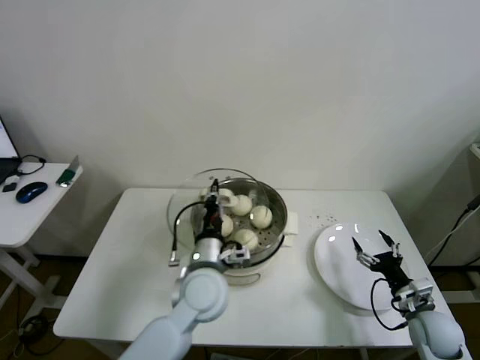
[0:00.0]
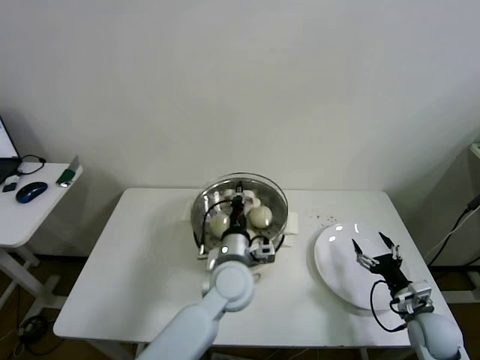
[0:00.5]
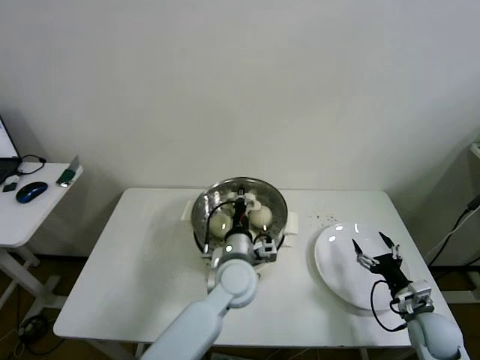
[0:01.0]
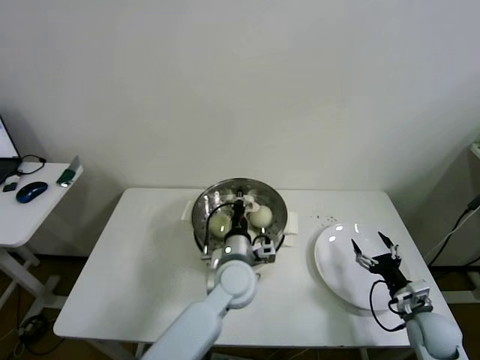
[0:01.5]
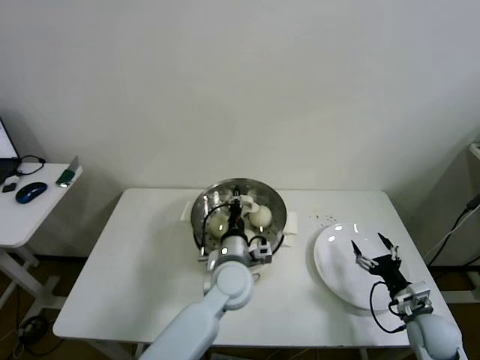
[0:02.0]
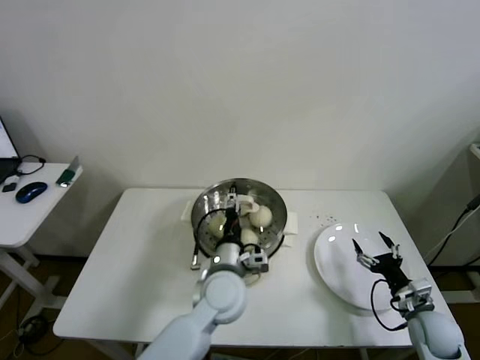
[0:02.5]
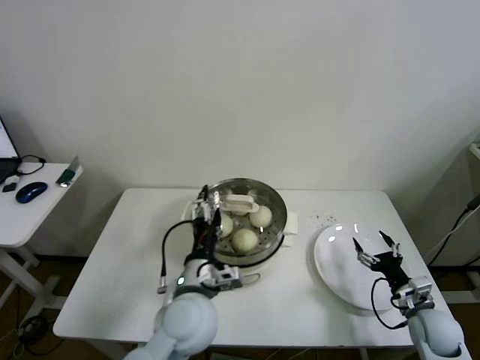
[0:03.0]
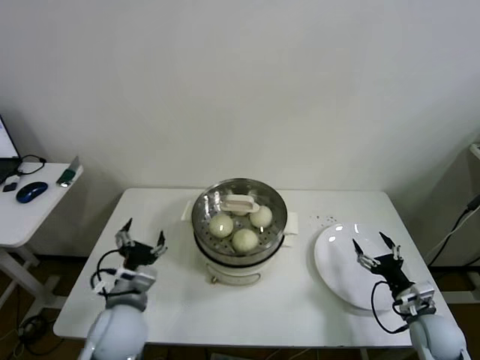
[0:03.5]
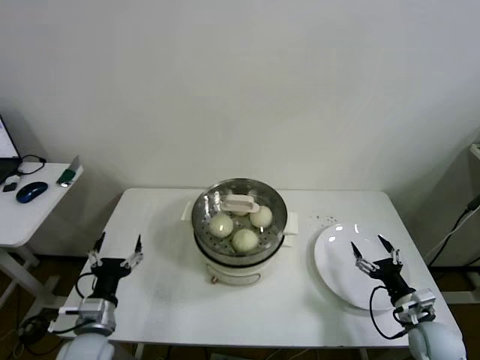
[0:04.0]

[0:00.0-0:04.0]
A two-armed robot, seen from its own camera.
Step, 0.0 to 2.5 s: Place the pot lid on the steamer with left gripper.
0.0 to 2.0 s: The left gripper shifts roughly 5 cm to the right.
2.0 to 4.0 s: The left gripper shifts some 30 cm to the left and backward, and opens up.

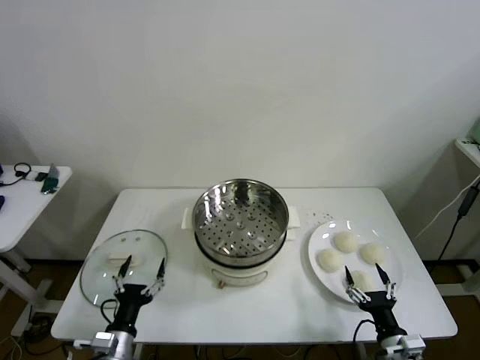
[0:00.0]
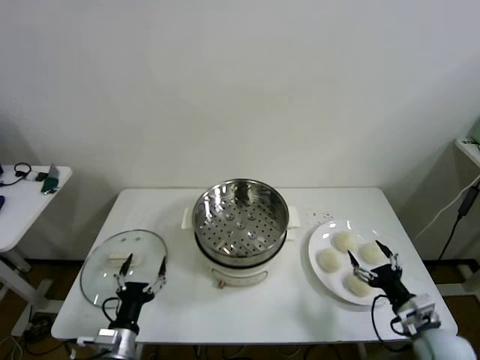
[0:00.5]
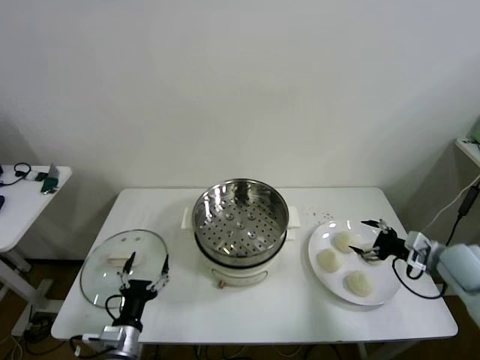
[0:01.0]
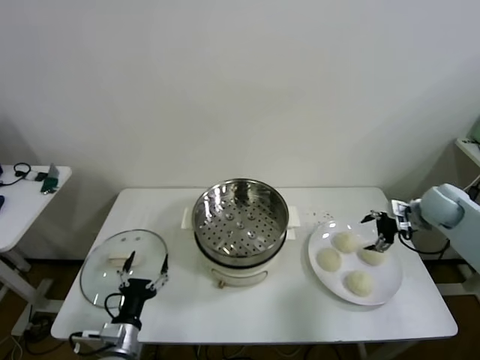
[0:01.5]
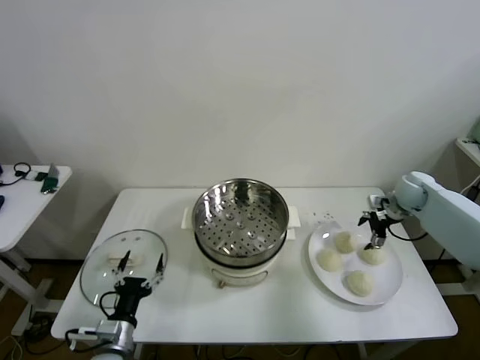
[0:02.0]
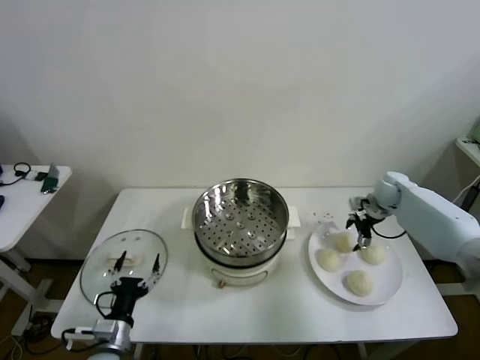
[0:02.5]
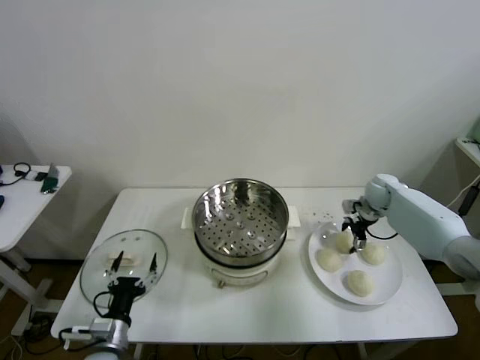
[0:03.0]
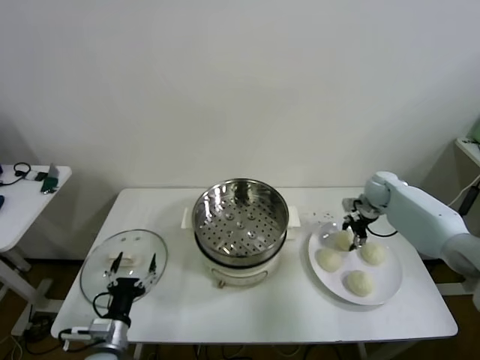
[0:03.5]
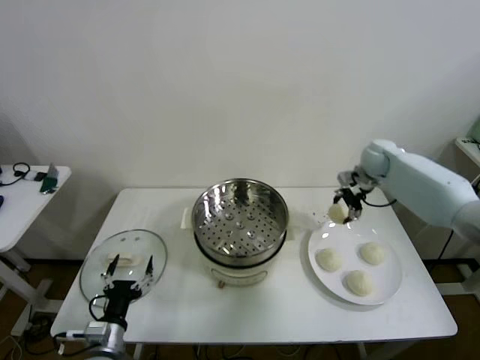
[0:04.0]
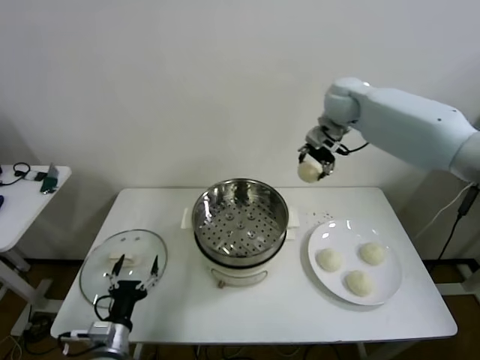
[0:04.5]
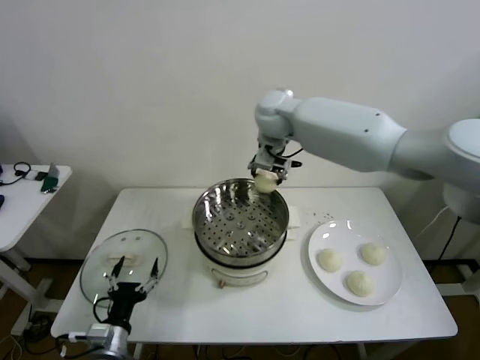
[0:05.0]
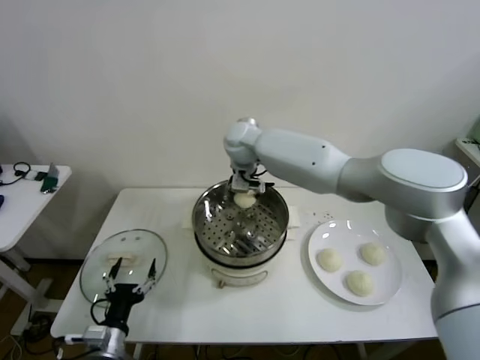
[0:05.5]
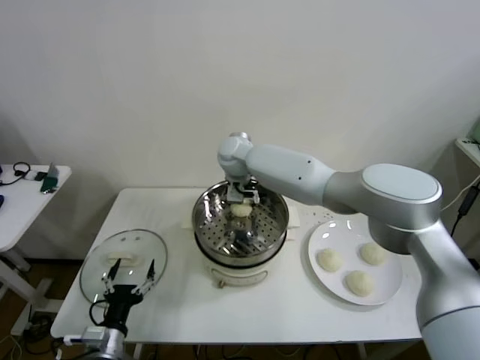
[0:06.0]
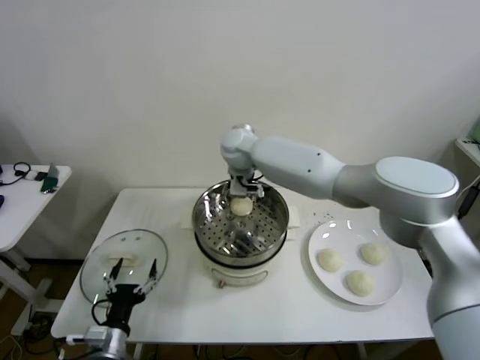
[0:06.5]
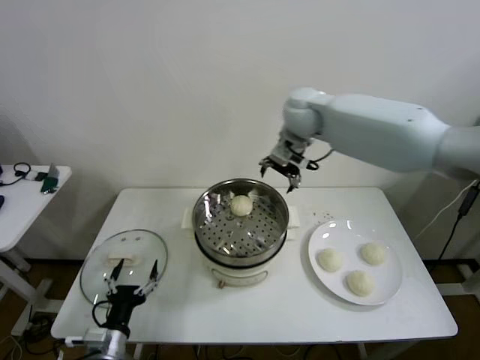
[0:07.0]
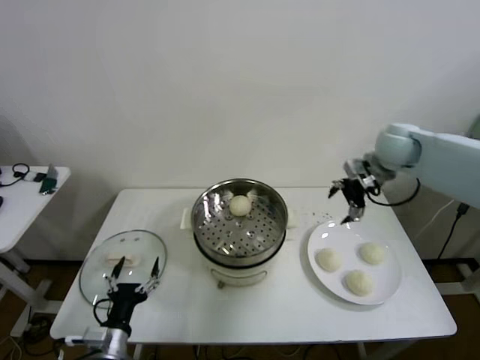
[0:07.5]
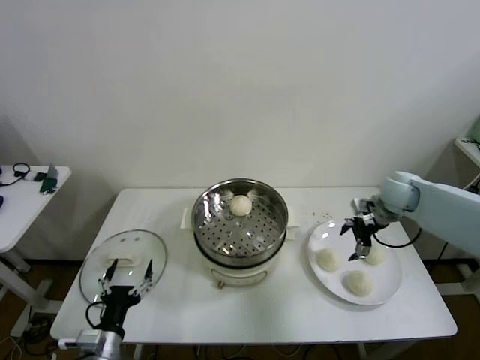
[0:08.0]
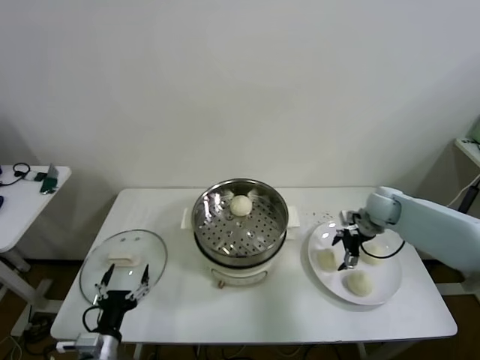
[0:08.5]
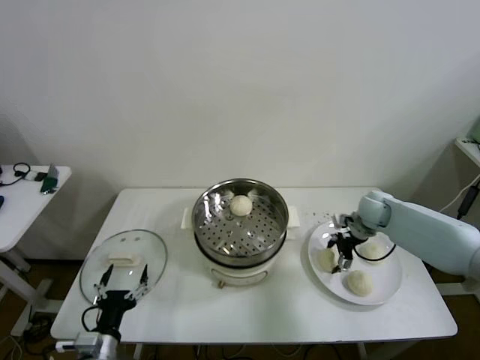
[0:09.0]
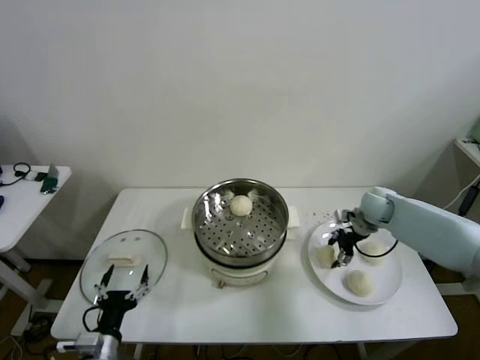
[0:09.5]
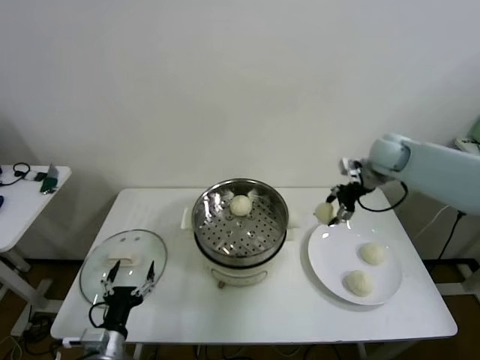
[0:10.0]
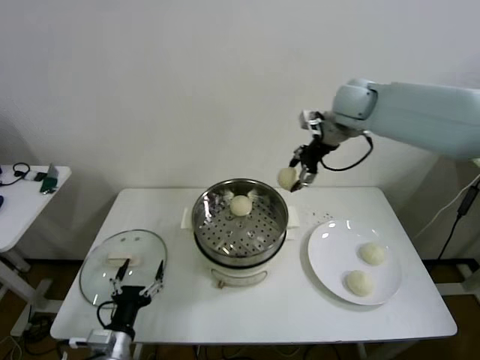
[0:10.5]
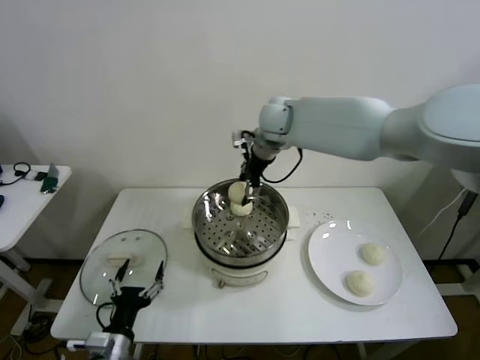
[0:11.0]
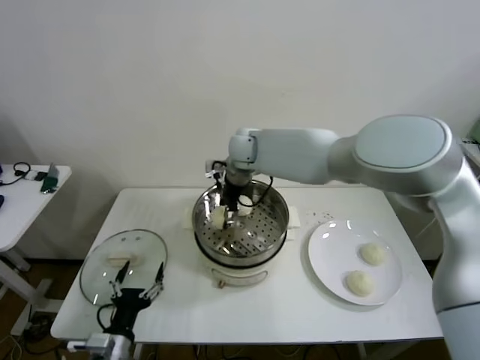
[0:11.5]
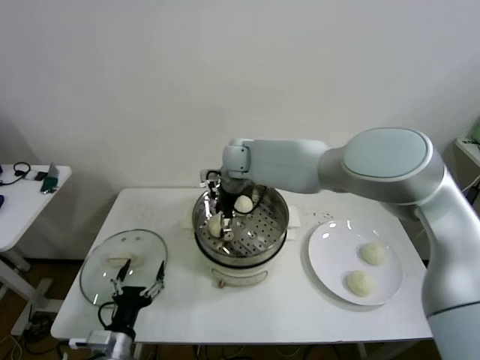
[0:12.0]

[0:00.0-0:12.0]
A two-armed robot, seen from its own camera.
Step, 0.0 to 3.0 s: Grasp the baozi in the plate with right gripper.
Step, 3.5 to 6.0 s: Place the baozi on the steamer with right gripper.
Step, 6.5 to 9.0 s: Grasp the baozi in the plate with right gripper.
2.0 to 4.0 s: The right gripper heads upward, to the left and forward, covering some 15 cm, and closes up.
4.0 to 6.0 s: The right gripper travels to the left by some 35 cm, and opens up.
6.0 to 8.0 s: The right gripper shifts about 40 cm to the right.
8.0 to 10.0 s: The right gripper is displaced upward and forward by approximately 15 cm, and closes its fingers.
10.0 to 12.0 s: The right gripper moves to the left, approximately 35 cm, and opens its fingers.

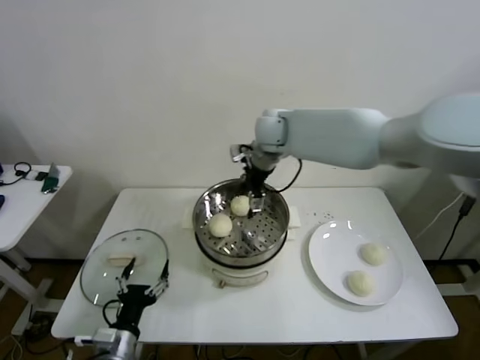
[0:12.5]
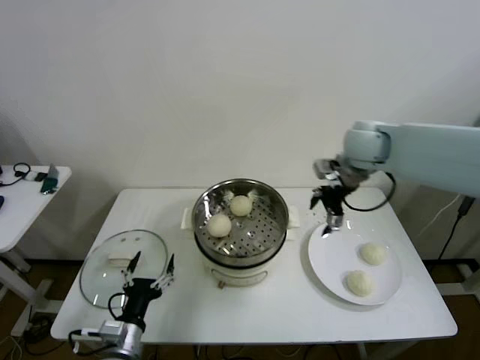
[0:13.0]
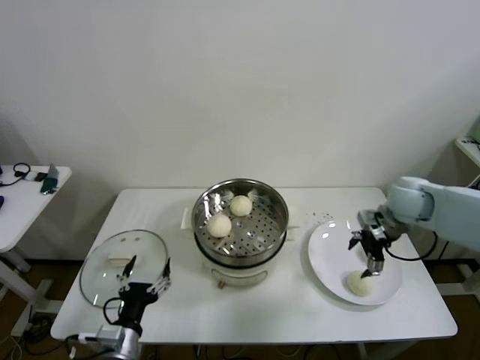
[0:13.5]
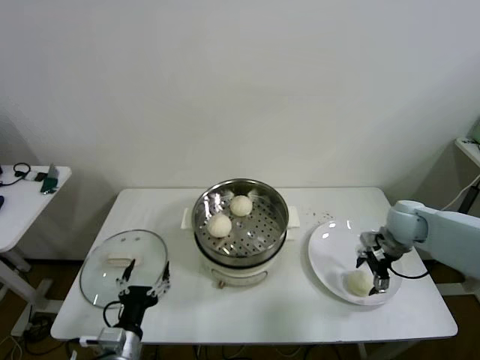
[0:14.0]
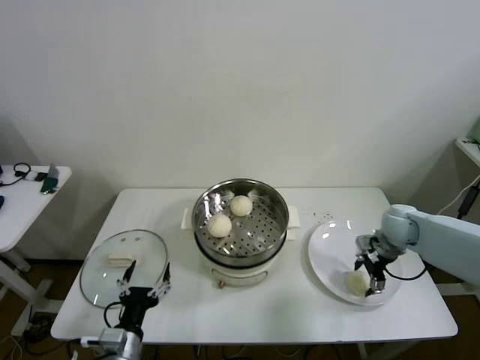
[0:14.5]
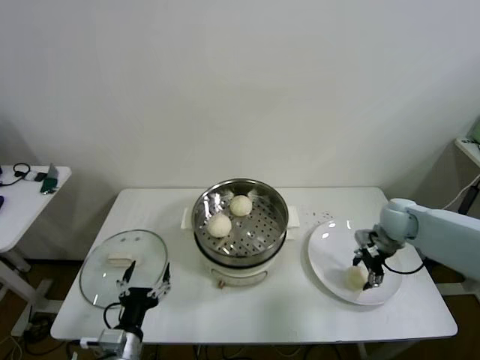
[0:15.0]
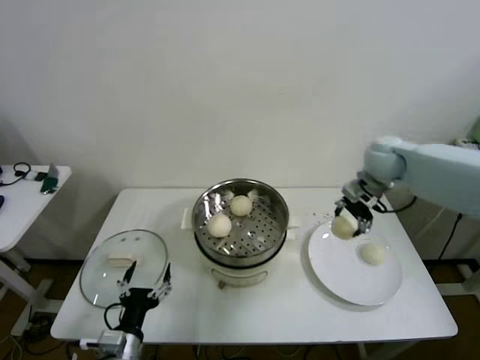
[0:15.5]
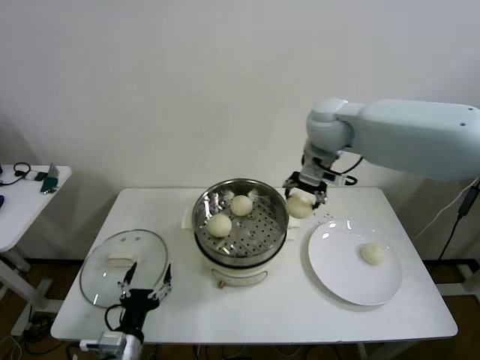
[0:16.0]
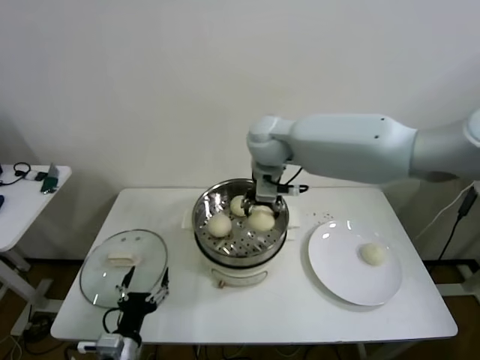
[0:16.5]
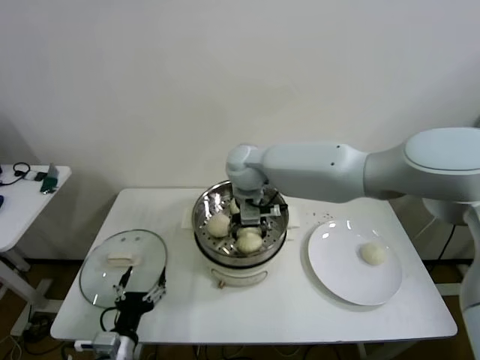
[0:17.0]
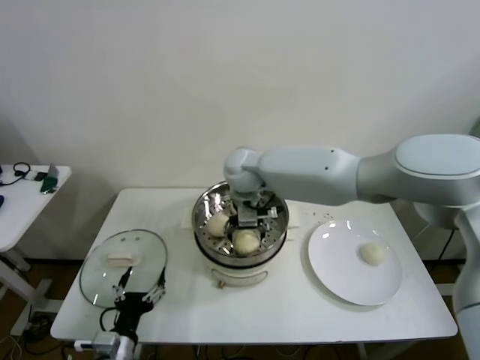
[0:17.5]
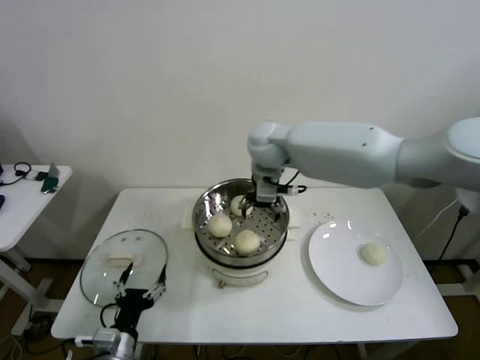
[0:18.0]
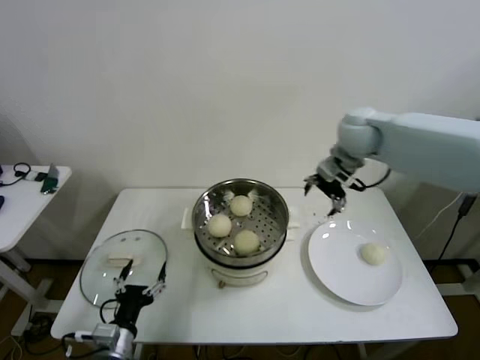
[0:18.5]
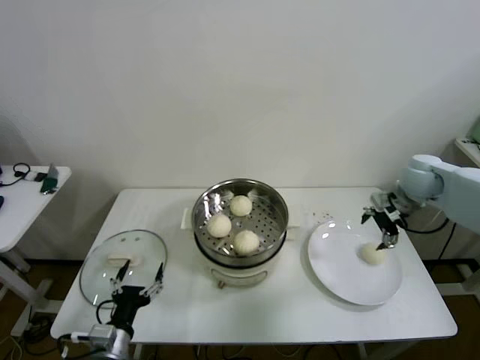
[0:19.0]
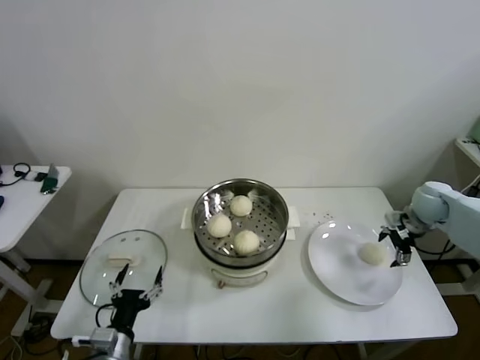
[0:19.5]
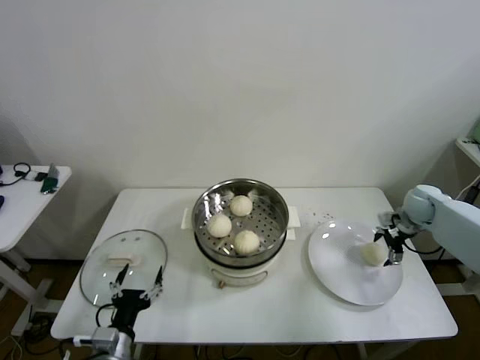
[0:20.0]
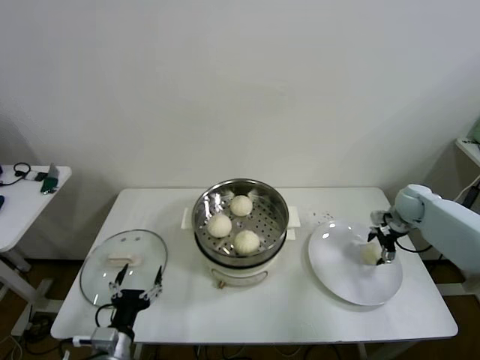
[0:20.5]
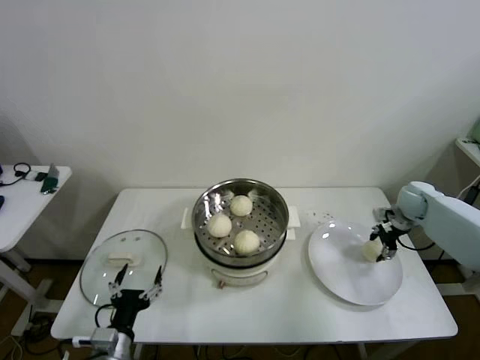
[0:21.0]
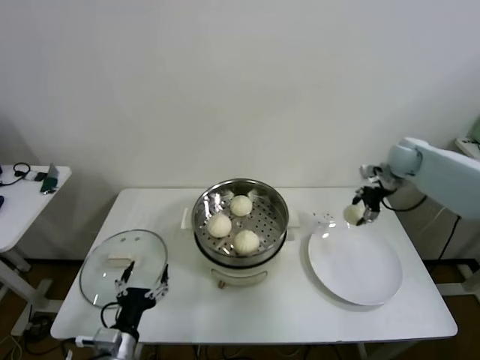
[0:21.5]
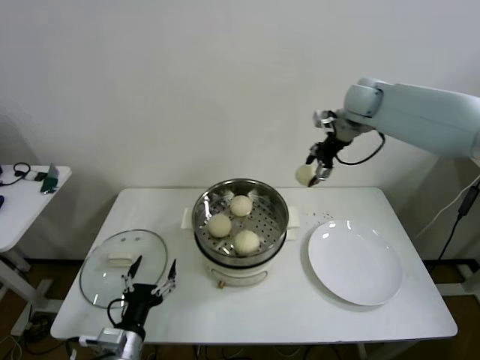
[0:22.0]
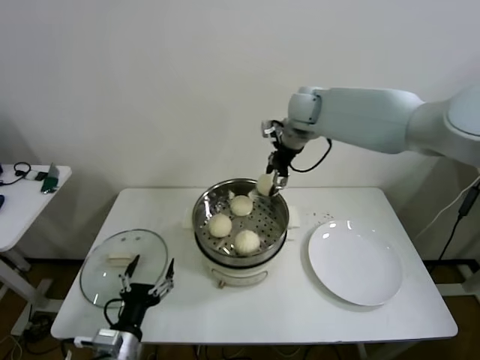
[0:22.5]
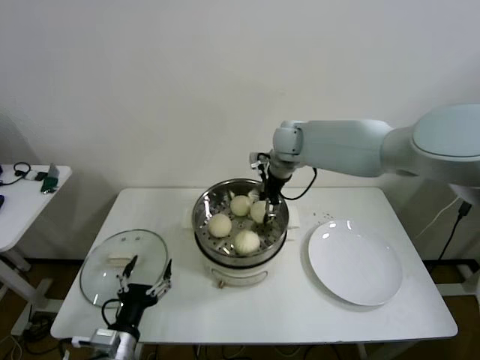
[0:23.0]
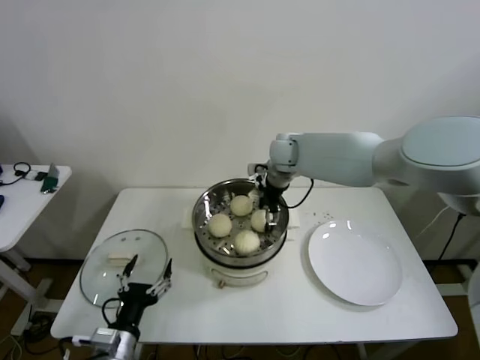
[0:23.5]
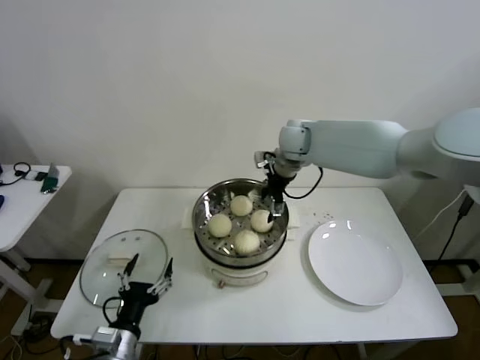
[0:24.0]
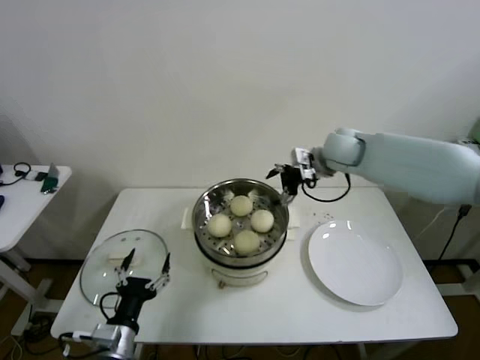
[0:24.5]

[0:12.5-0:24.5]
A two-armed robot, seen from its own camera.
Step, 12.5 to 14.5 s: Grasp the baozi in the plate with right gripper.
Step, 15.0 to 17.0 s: Place the baozi on the steamer with right gripper.
Step, 17.5 to 20.5 s: Grasp the baozi in the plate with right gripper.
Step, 21.0 to 23.5 s: Place the baozi on the steamer with right gripper.
12.5 to 14.5 s: The right gripper shifts approximately 35 cm to the right and downward, and closes its fingers.
14.5 to 16.5 s: The right gripper goes roughly 40 cm to the left and upward.
16.5 to 18.5 s: The right gripper goes approximately 20 cm to the right, and opens up.
18.5 to 20.5 s: The right gripper moves downward and to the right, some 30 cm.
20.5 to 22.5 s: The right gripper is displaced to the left and upward by roughly 40 cm, and closes up.
22.5 to 24.5 s: The right gripper moves to the right, downward and backward, approximately 15 cm, and opens up.
